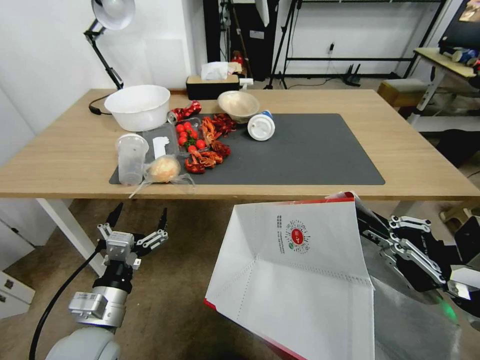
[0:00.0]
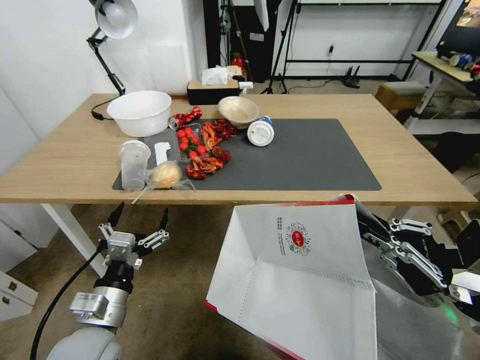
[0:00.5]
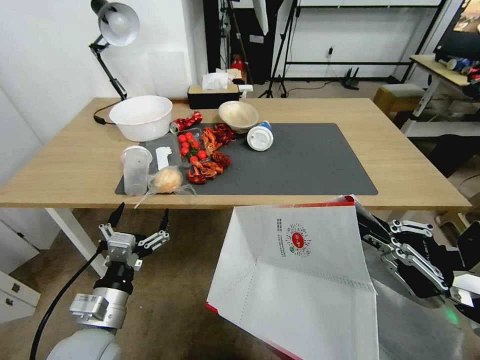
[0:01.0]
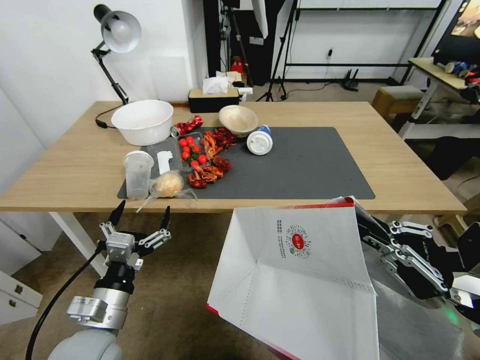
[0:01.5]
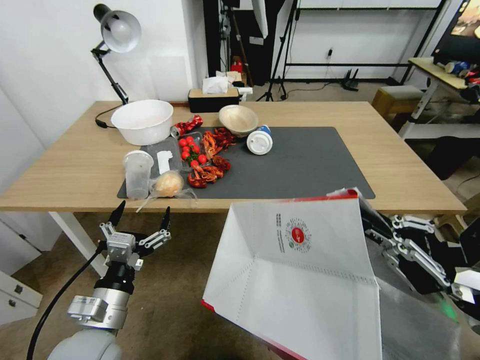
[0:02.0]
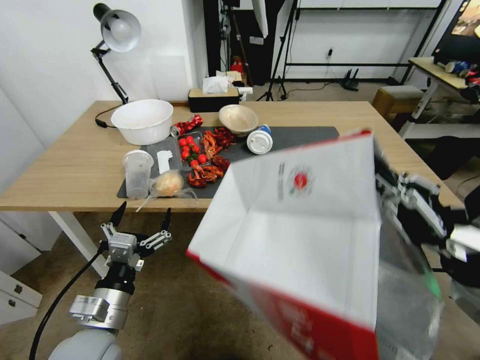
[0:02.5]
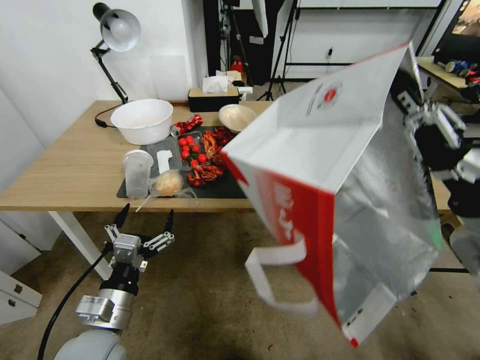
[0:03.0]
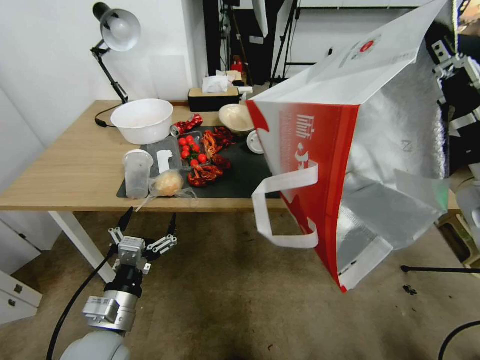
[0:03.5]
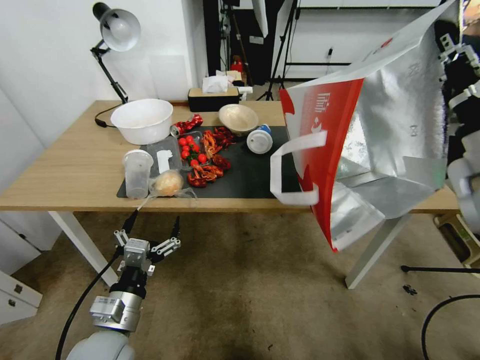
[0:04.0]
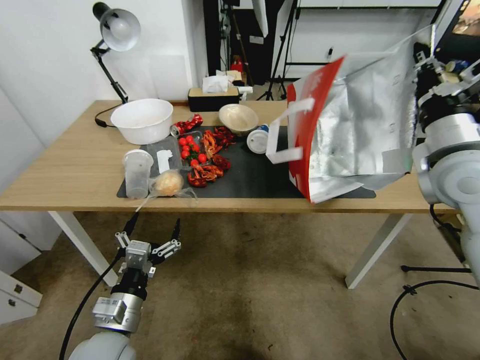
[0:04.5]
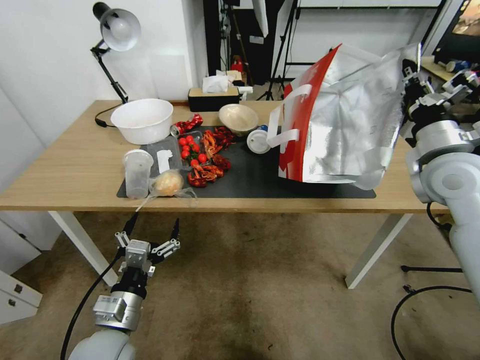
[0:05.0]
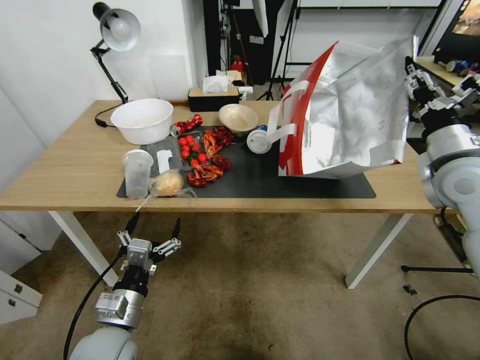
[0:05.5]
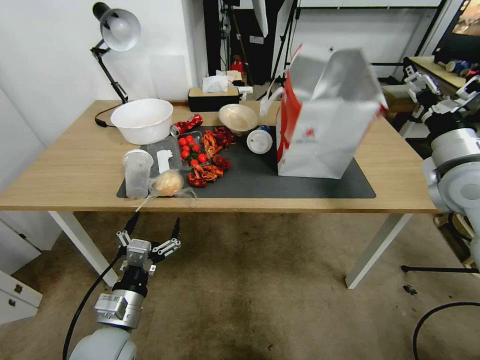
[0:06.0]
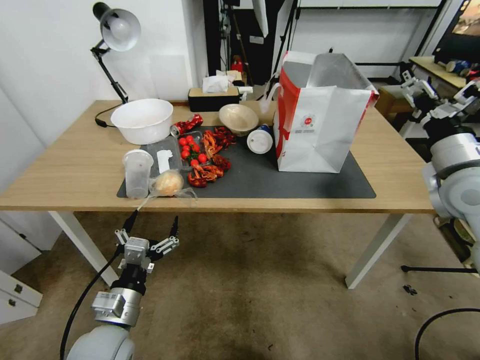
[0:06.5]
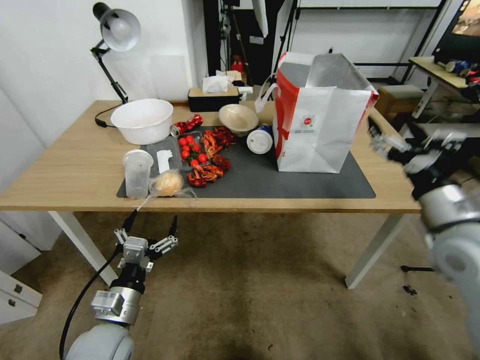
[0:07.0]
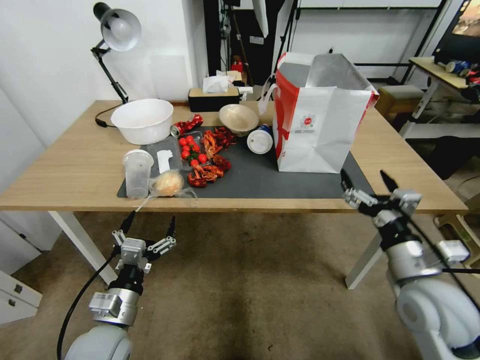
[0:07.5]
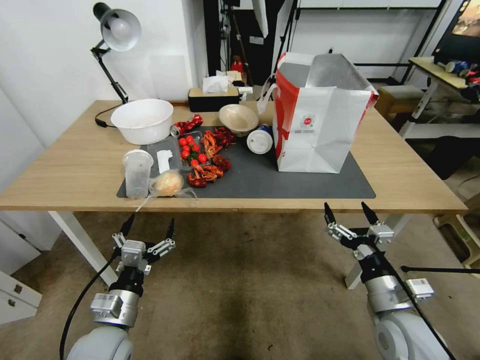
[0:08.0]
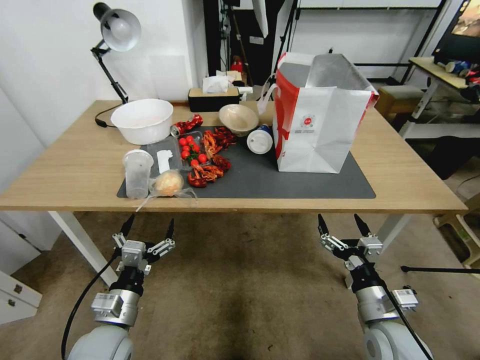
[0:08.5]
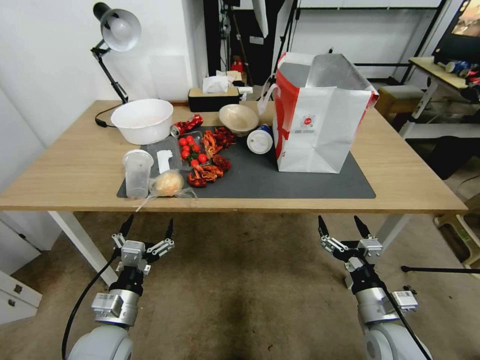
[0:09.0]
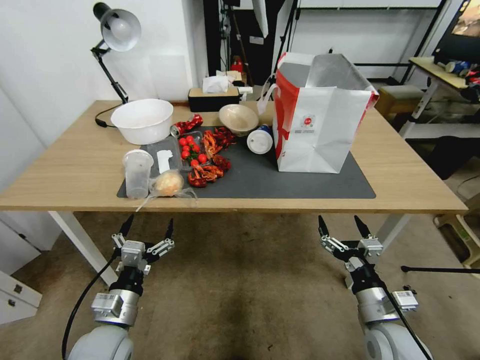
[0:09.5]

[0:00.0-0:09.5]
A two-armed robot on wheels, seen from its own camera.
Task of the whole recording: Pick up the food delivery bag from the floor and place it on the table.
0:02.0 to 0:04.0: The right gripper moves forward and upward, about 15 cm.
0:04.0 to 0:05.5: The right gripper heads forward and downward, covering some 10 cm, and opens up.
0:05.5 to 0:07.5: The right gripper goes some 20 cm backward, downward and to the left, and opens.
0:07.5 to 0:09.5: The right gripper moves downward, about 10 cm.
